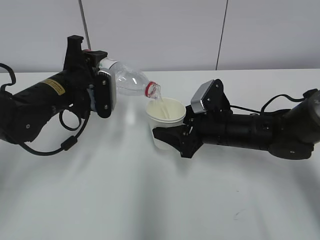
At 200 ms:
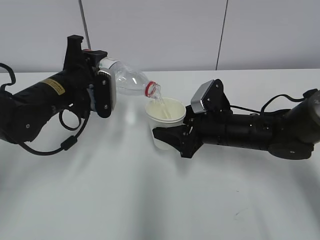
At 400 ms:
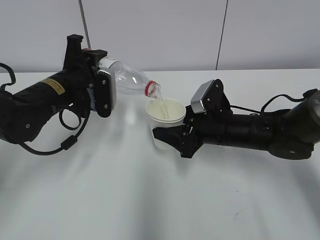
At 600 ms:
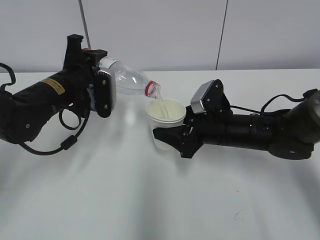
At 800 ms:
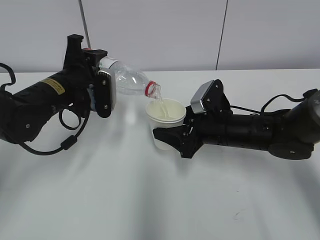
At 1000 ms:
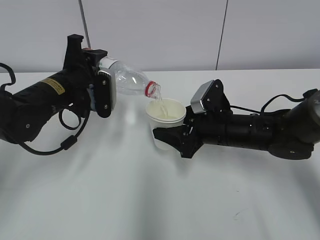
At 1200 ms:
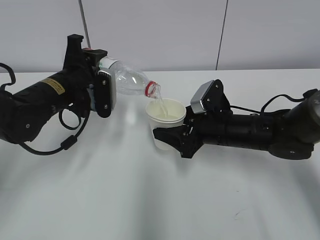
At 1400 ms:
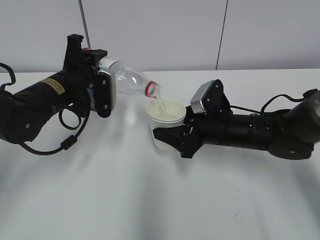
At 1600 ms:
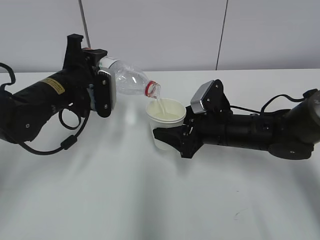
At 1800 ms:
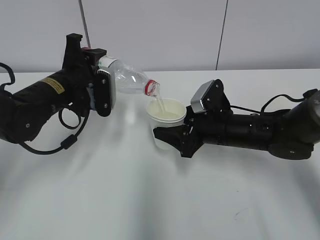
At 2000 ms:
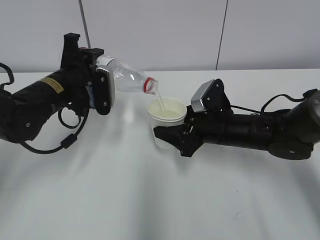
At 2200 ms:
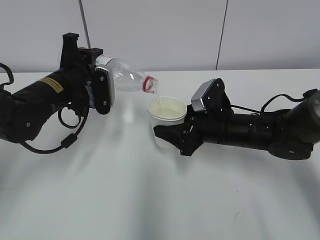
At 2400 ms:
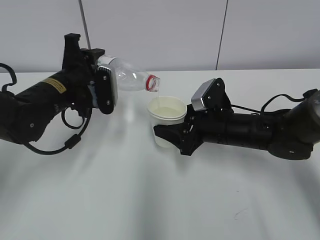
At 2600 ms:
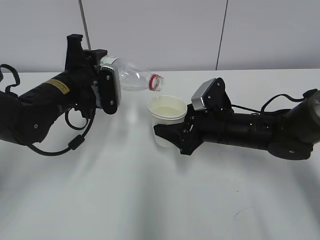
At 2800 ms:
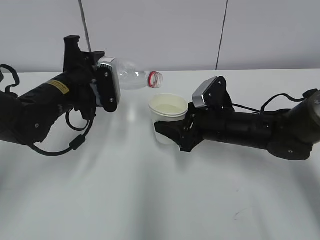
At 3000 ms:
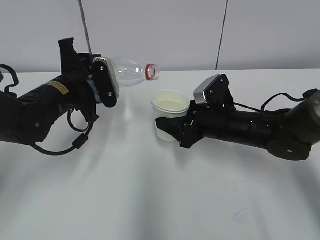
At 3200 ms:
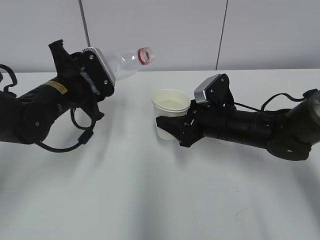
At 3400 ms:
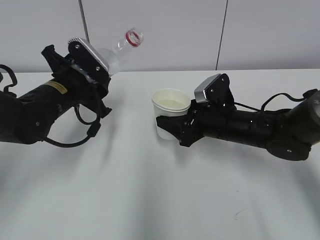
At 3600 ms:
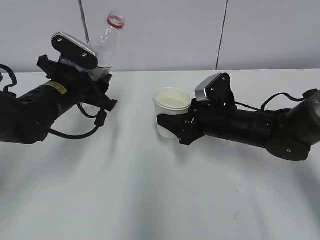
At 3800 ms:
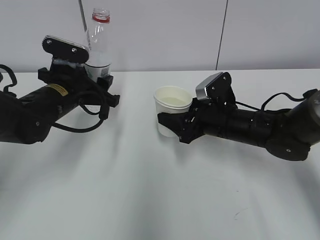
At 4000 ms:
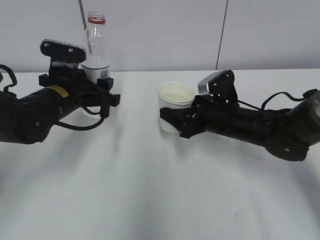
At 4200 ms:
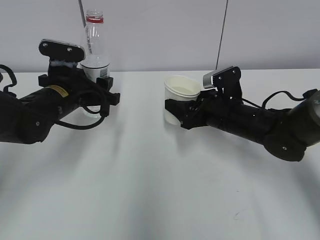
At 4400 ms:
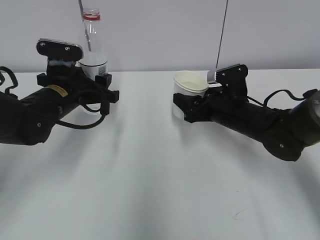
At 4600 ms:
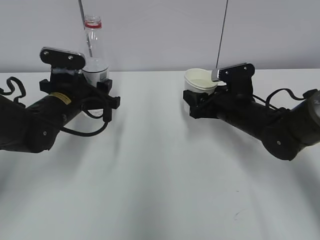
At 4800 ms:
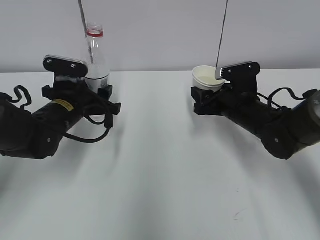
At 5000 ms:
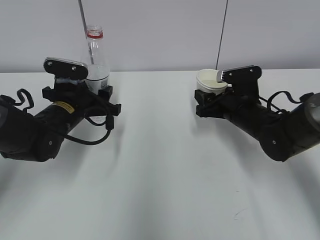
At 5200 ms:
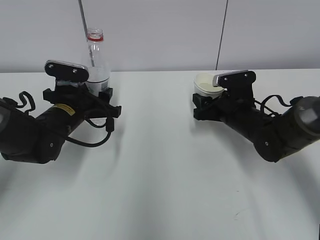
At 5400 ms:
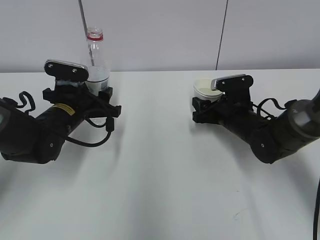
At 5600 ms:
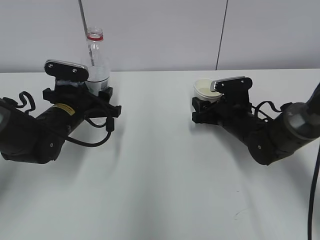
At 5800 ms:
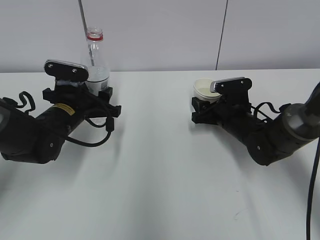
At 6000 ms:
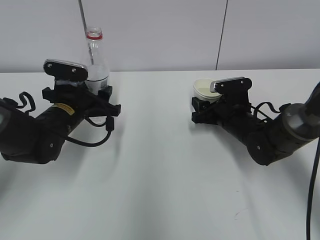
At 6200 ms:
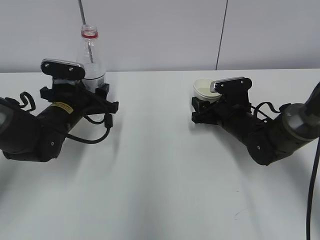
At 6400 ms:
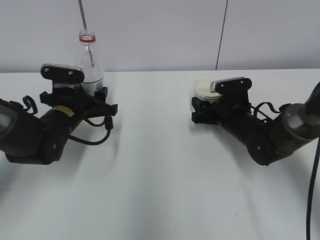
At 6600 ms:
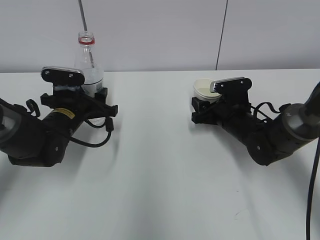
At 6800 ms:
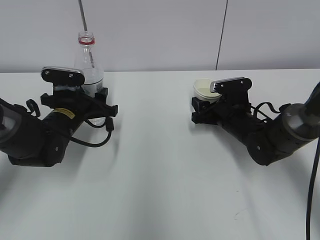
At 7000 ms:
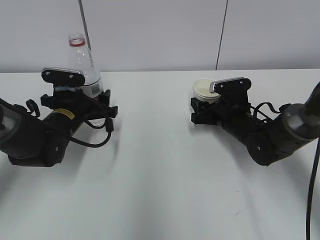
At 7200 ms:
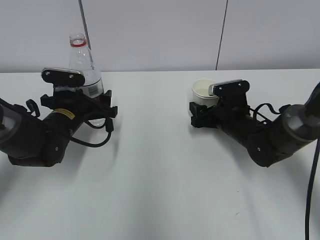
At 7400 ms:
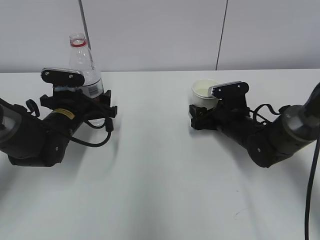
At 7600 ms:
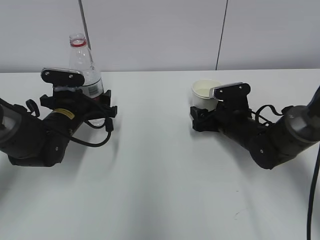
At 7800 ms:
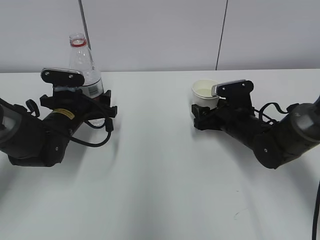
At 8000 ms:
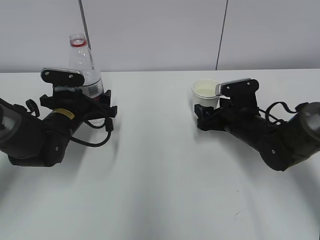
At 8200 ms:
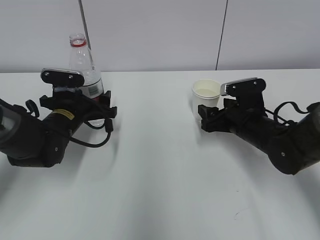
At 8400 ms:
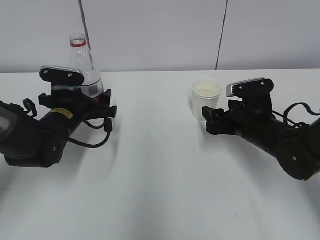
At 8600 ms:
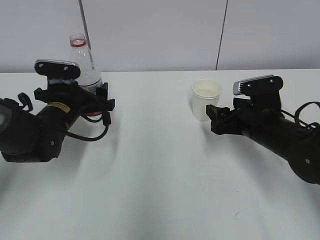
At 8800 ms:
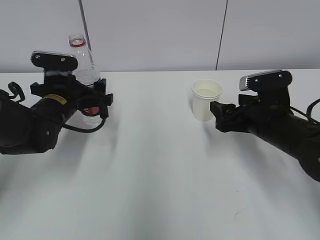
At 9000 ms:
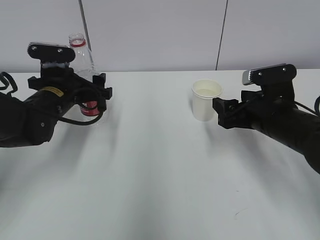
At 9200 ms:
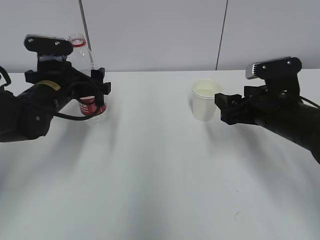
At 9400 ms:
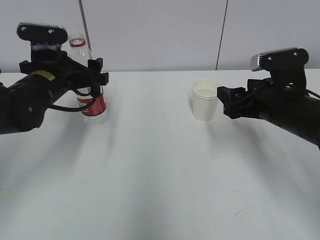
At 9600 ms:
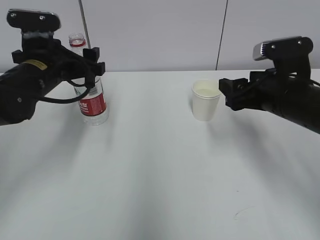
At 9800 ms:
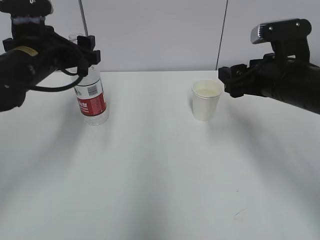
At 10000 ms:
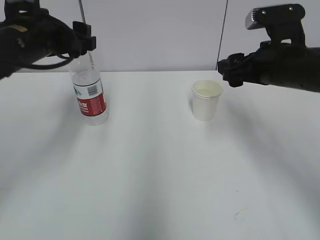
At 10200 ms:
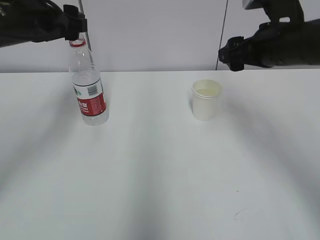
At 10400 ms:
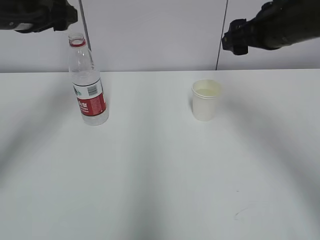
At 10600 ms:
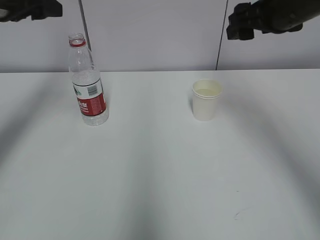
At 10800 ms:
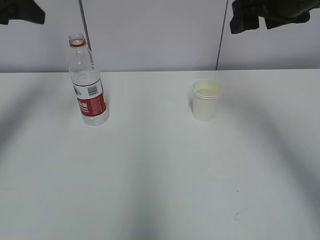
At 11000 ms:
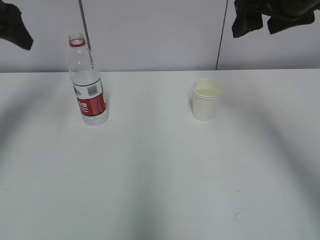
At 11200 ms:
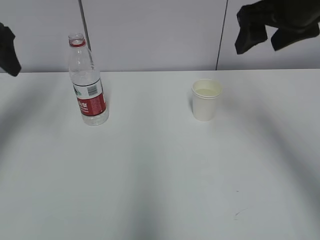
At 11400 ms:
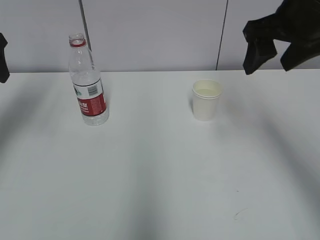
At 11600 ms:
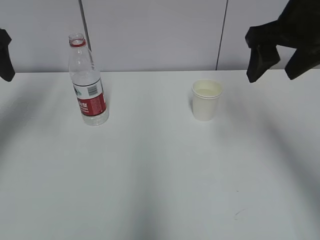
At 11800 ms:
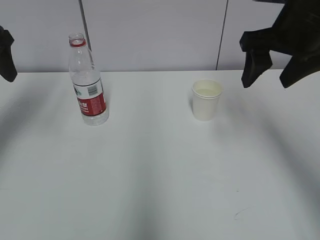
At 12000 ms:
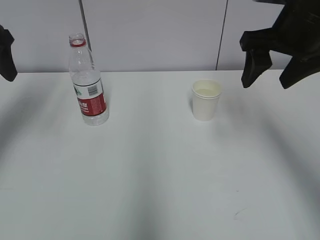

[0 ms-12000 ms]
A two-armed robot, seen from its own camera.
Step, 800 ms to 3000 ms: Place the paper cup with the right hand.
Step, 800 ms to 3000 ms: Place the water bottle with the left hand.
0 ms to 1600 ms: The two grippers keep their place.
1600 ms to 3000 ms: The grippers stay close to where they were, moving slightly.
4400 ms to 6000 ms: The right gripper heads downward, covering approximately 5 cm.
6000 ms to 7600 ms: The left gripper opens up. Meanwhile the right gripper opens up.
7600 ms to 9000 ms: The left gripper goes approximately 5 cm upward. The right gripper travels upward and backward by about 10 cm.
9000 ms to 10400 ms: The grippers both shift upward by roughly 15 cm.
10400 ms to 12000 ms: The left gripper is displaced to the left by approximately 5 cm.

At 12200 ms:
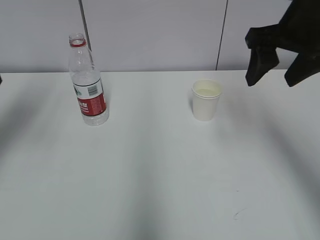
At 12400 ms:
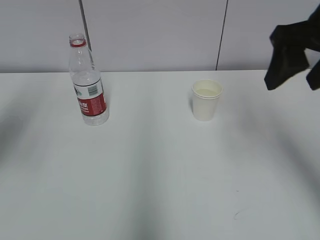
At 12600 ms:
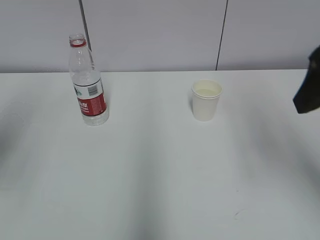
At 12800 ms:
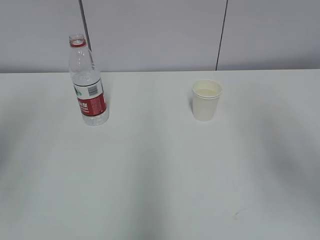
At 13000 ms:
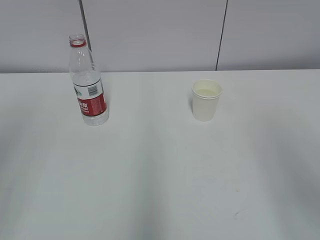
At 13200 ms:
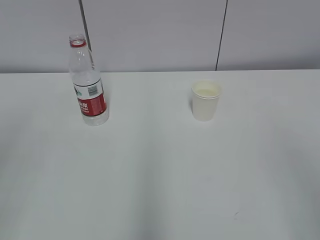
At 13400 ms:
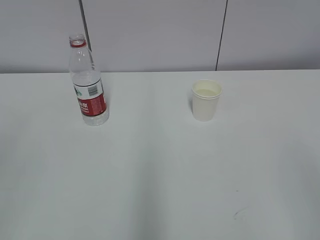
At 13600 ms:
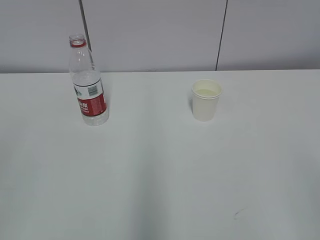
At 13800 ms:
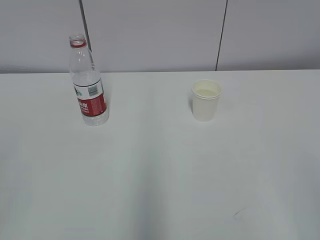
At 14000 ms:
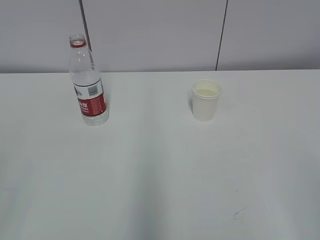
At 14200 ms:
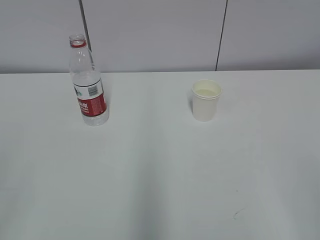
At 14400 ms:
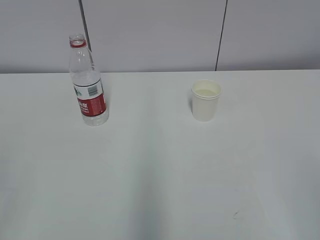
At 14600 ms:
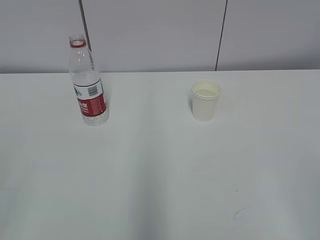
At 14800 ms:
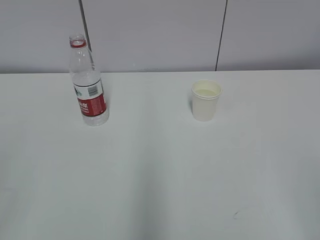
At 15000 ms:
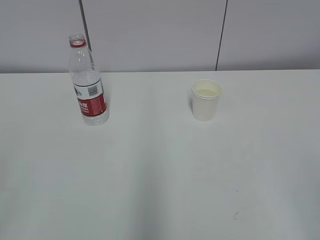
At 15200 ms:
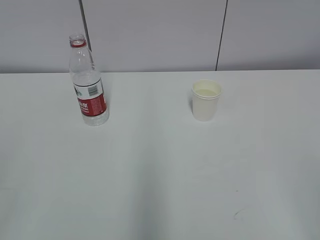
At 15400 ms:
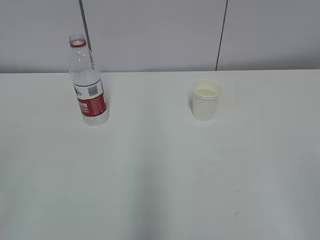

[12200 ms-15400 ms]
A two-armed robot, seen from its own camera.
12200 ms to 13800 ms: The grippers both shift backward by some 30 cm.
